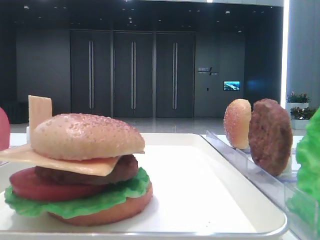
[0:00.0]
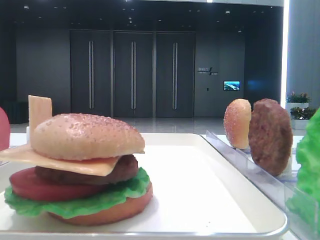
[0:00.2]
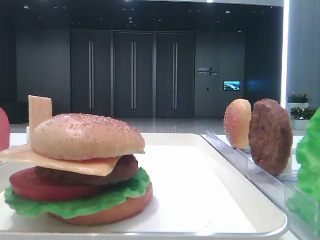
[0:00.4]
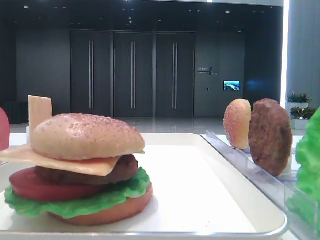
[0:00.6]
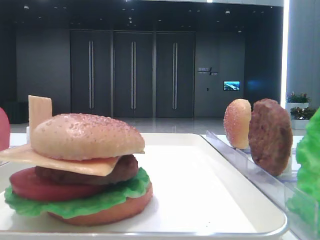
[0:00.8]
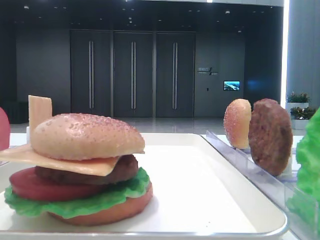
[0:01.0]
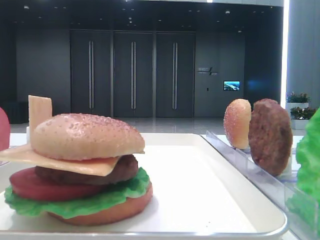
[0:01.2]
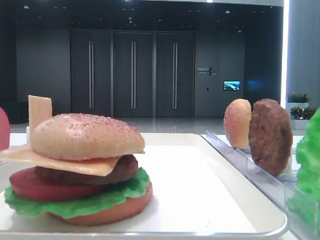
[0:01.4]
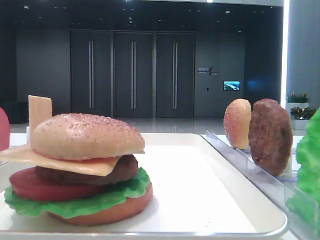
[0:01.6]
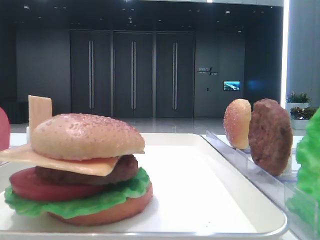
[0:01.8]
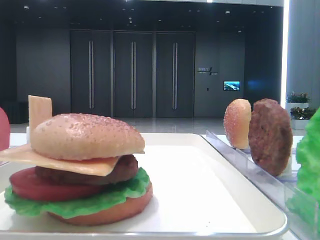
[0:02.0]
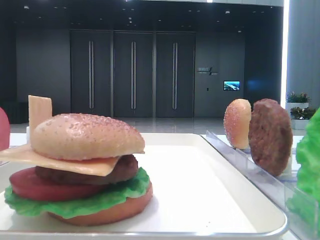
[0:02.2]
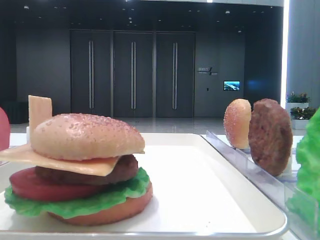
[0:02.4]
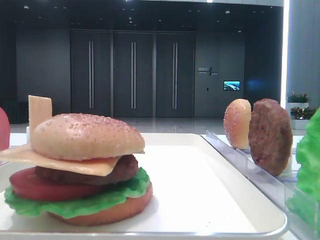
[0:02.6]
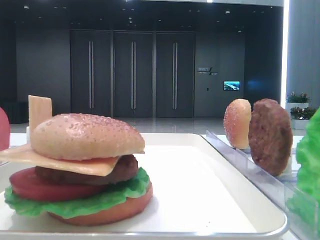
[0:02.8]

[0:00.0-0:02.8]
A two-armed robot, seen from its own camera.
0:01.4 to 0:02.8: Both grippers stay put.

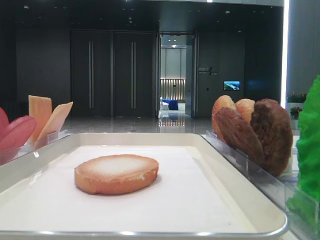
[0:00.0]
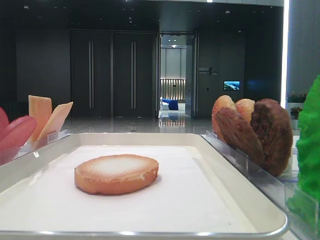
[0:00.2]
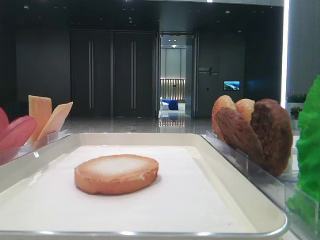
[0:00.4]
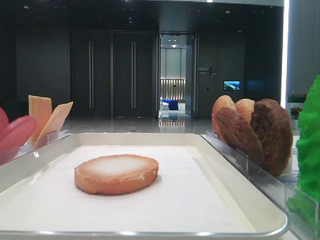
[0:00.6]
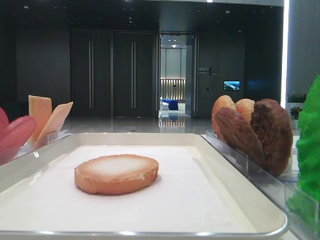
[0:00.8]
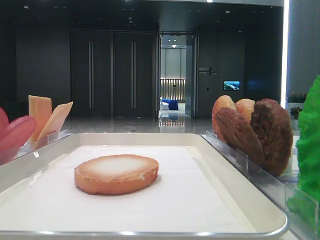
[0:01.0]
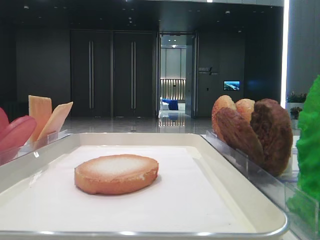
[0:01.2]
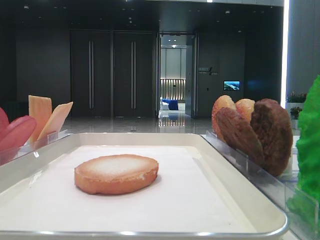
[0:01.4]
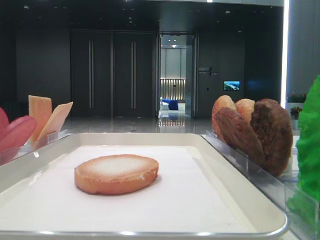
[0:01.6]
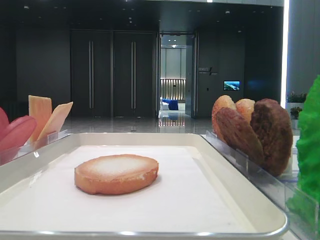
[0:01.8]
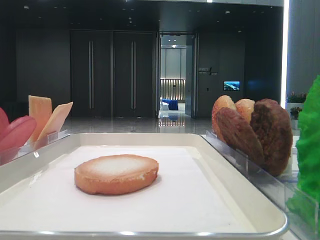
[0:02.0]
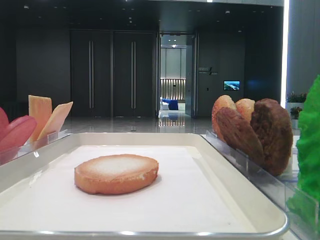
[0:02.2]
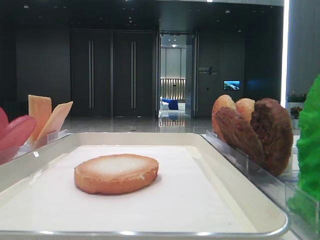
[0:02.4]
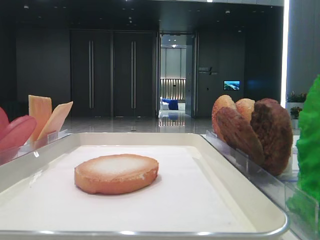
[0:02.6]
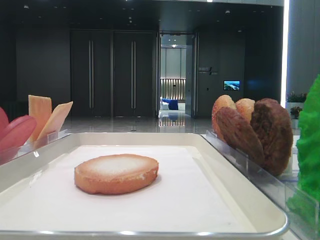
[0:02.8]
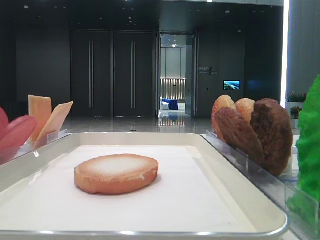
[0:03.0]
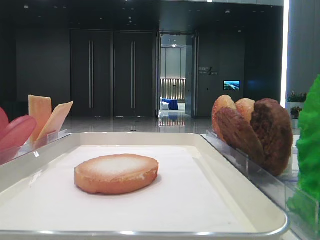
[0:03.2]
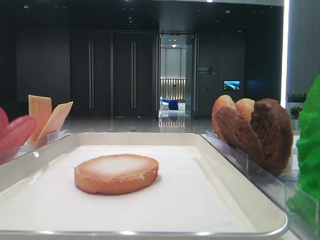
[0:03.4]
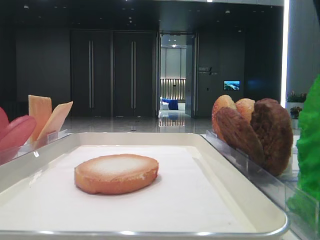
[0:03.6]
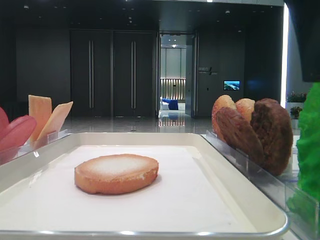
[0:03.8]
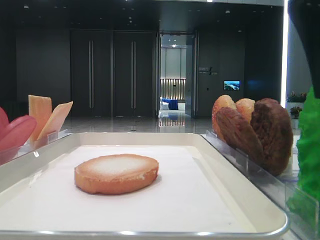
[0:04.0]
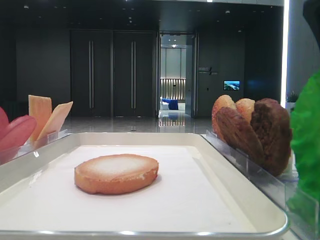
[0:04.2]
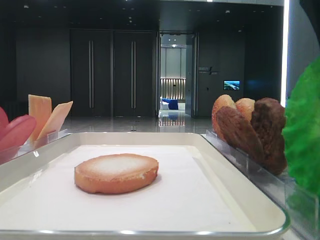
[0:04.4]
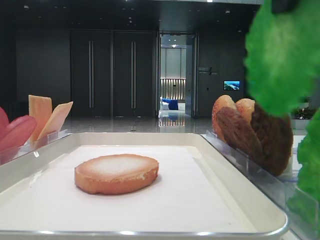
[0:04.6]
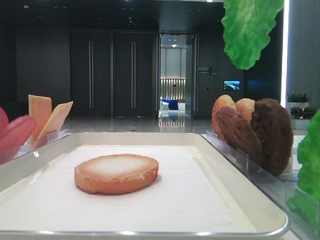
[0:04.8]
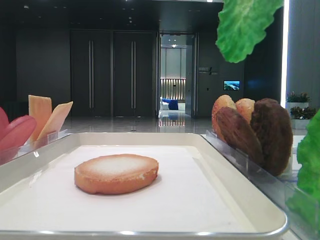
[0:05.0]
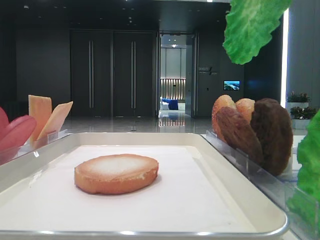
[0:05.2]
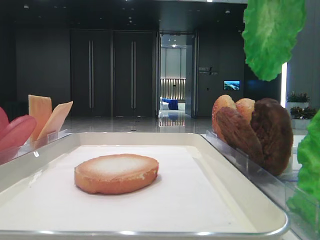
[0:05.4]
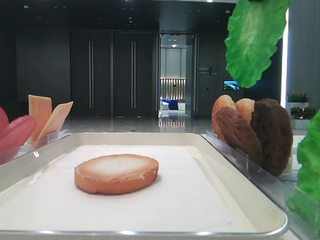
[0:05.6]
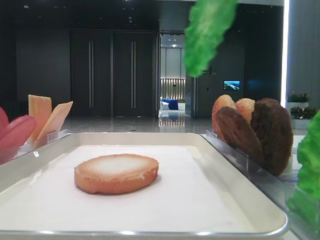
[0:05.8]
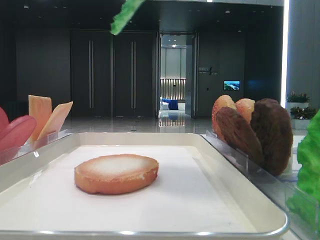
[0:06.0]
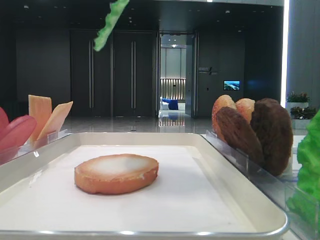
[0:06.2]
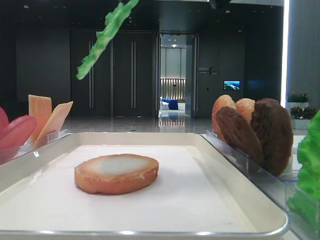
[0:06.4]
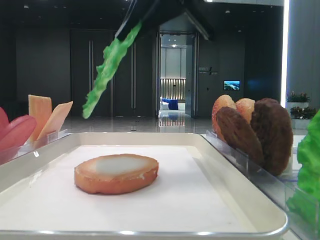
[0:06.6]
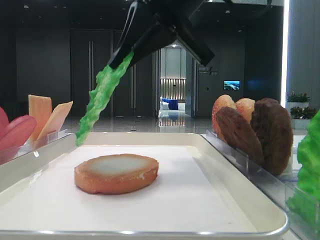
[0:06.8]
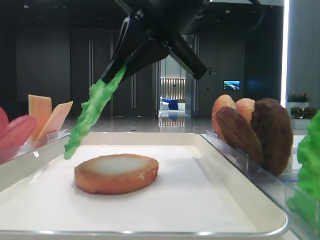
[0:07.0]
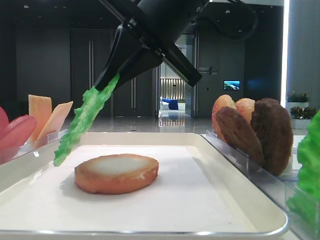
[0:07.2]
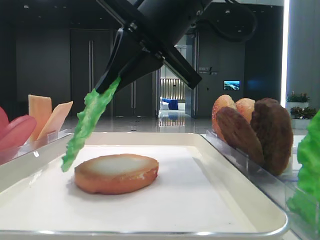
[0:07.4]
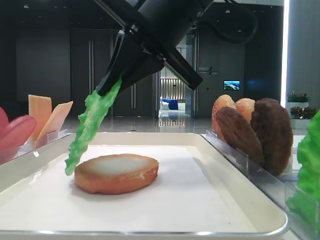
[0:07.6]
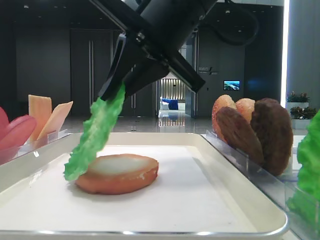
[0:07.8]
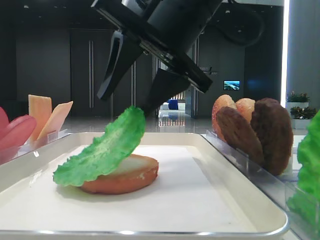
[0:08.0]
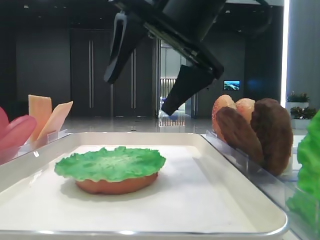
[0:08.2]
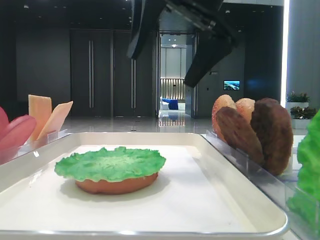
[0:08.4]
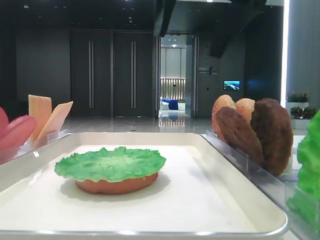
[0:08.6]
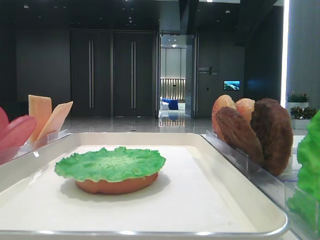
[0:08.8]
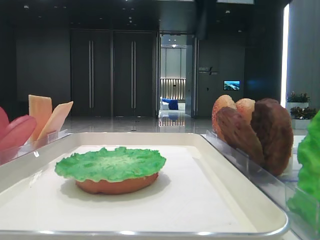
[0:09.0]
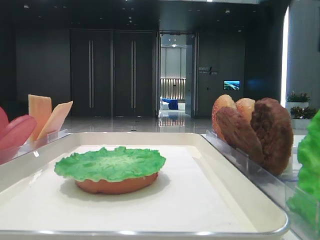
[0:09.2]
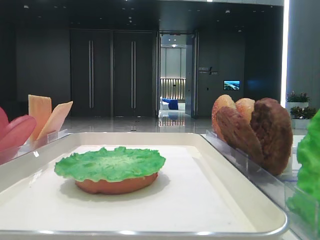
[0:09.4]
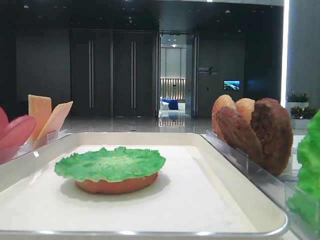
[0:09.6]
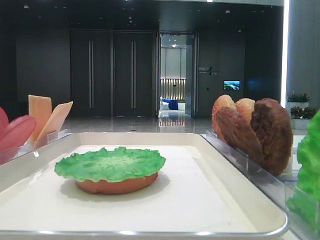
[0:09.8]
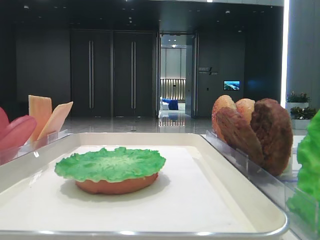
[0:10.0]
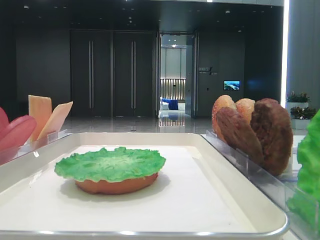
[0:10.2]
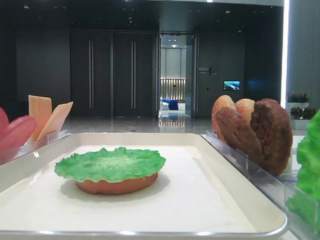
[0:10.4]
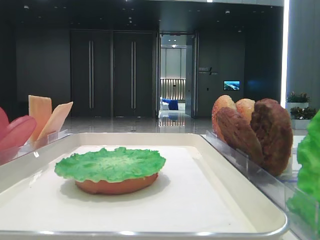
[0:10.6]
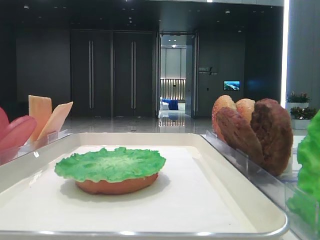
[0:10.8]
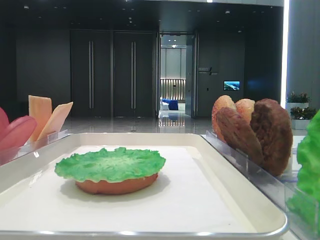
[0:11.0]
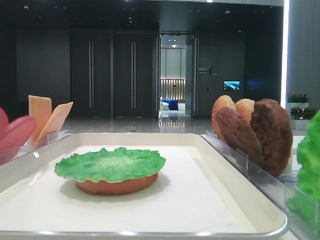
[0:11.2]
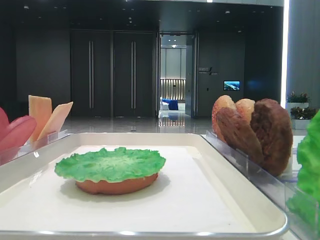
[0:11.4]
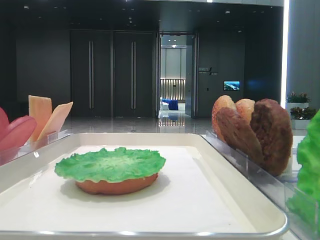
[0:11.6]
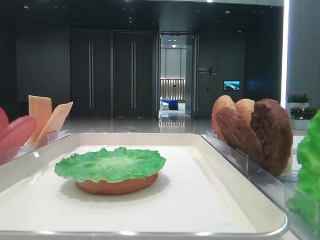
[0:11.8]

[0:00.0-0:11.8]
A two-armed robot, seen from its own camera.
Step, 0:00.0 to 0:04.2: Grab the lettuce leaf with the right hand.
Step, 0:04.4 to 0:08.0: Place the lettuce leaf on the bottom bread with the right hand.
0:03.0 to 0:04.4: The right gripper travels to the left by some 10 cm, and closes.
0:04.4 to 0:06.0: The right gripper travels upward and forward by some 10 cm.
0:06.0 to 0:07.4: The right gripper moves downward and to the left, some 15 cm.
0:07.4 to 0:08.8: The right gripper travels upward and to the right by some 10 cm, and opens its fingers.
0:08.8 to 0:10.4: The right gripper goes some 30 cm to the right and backward.

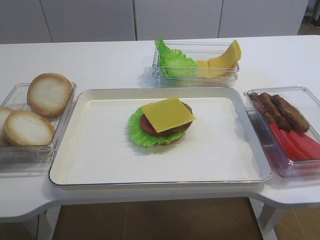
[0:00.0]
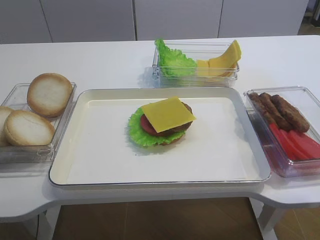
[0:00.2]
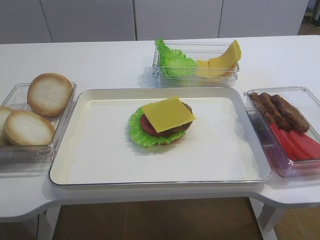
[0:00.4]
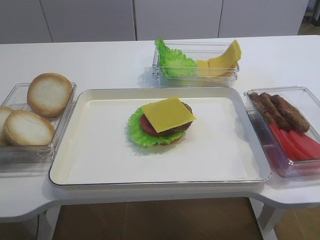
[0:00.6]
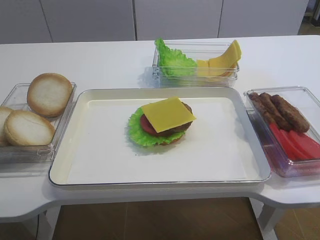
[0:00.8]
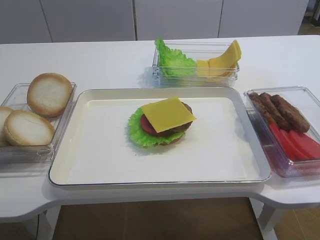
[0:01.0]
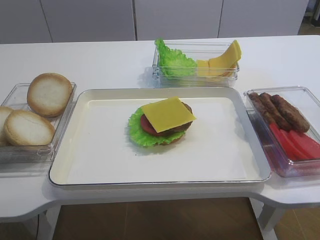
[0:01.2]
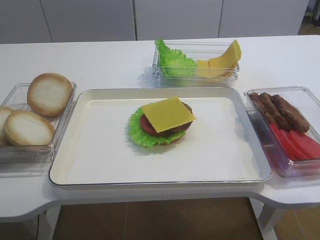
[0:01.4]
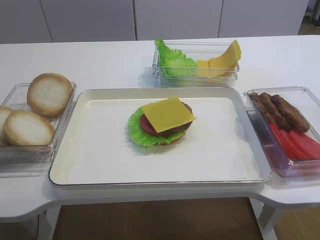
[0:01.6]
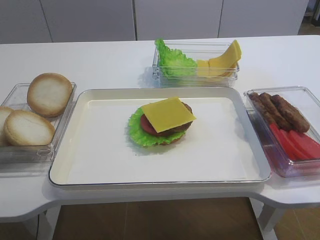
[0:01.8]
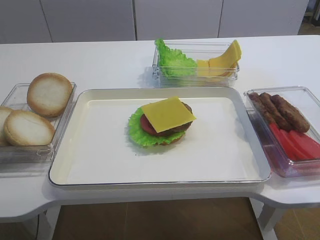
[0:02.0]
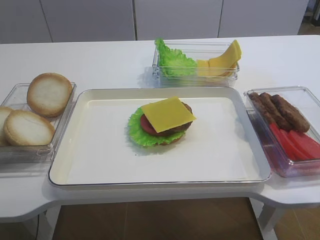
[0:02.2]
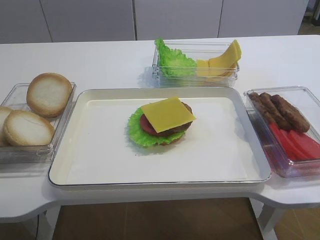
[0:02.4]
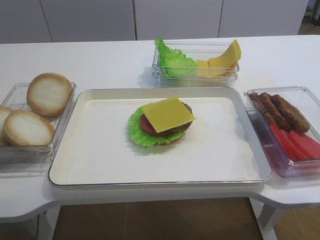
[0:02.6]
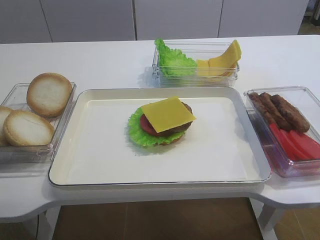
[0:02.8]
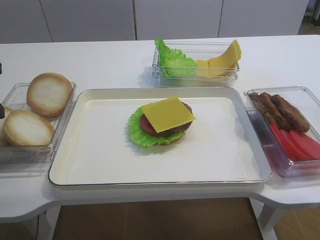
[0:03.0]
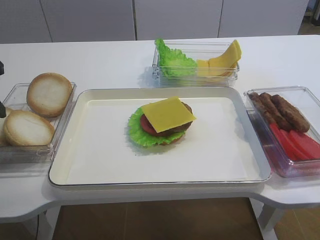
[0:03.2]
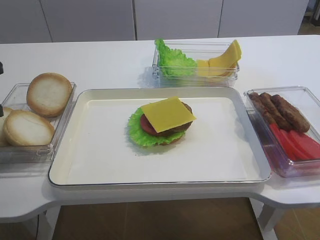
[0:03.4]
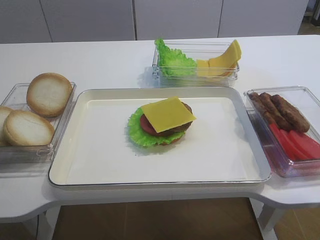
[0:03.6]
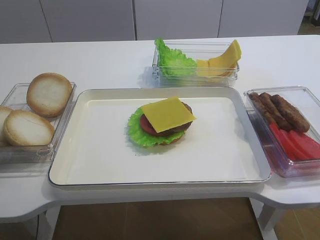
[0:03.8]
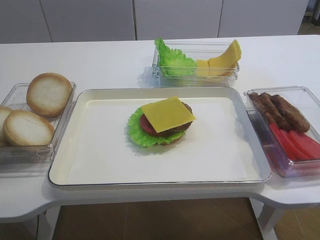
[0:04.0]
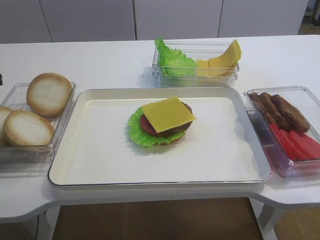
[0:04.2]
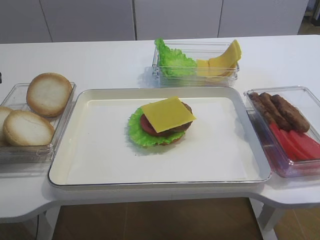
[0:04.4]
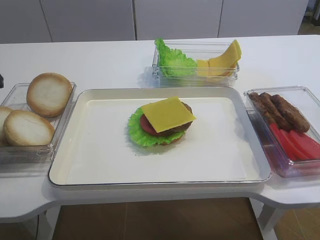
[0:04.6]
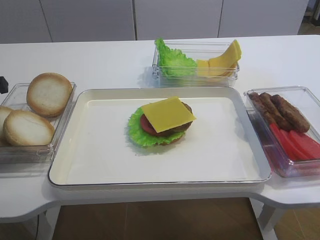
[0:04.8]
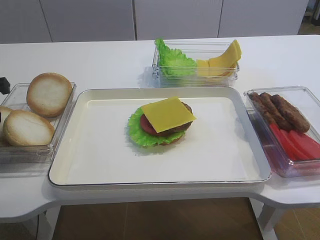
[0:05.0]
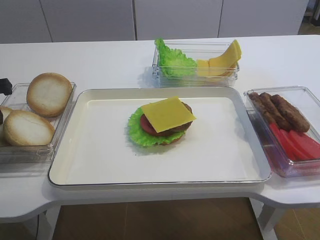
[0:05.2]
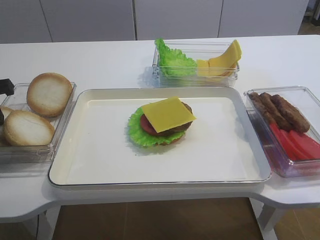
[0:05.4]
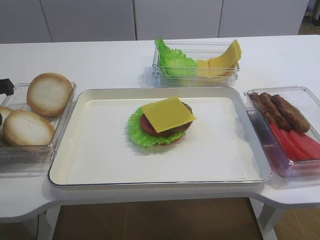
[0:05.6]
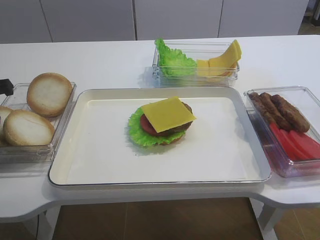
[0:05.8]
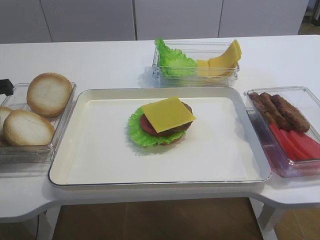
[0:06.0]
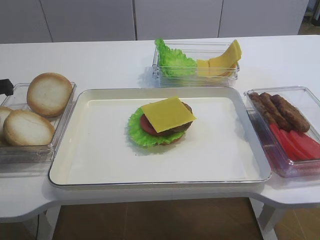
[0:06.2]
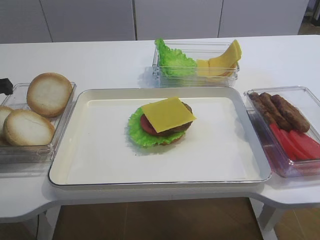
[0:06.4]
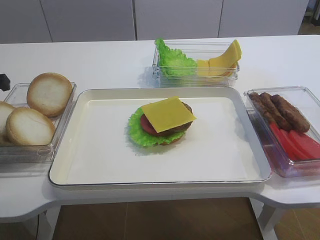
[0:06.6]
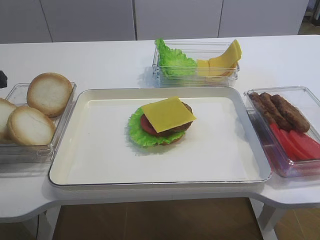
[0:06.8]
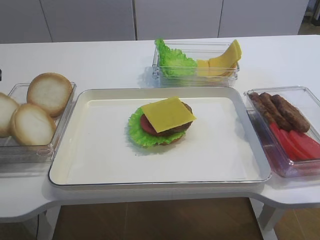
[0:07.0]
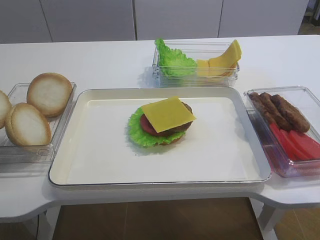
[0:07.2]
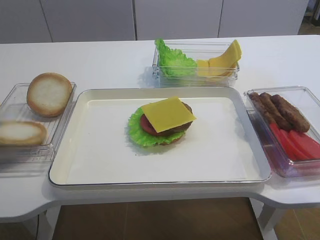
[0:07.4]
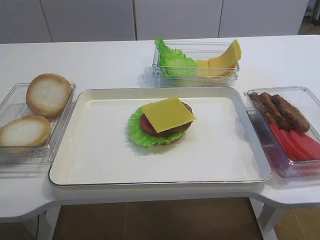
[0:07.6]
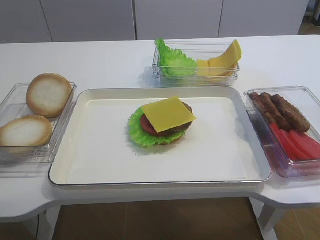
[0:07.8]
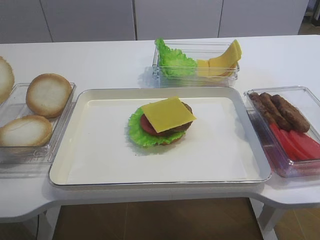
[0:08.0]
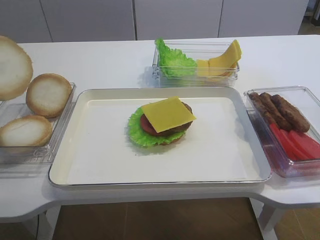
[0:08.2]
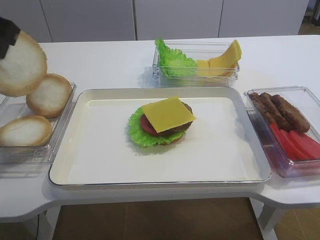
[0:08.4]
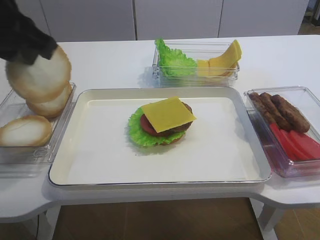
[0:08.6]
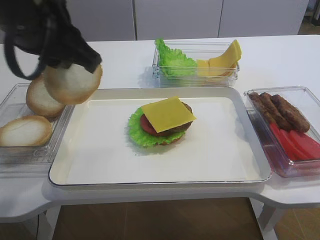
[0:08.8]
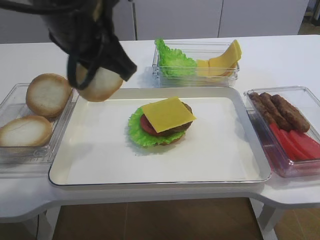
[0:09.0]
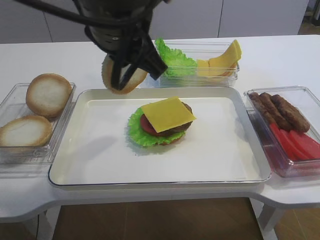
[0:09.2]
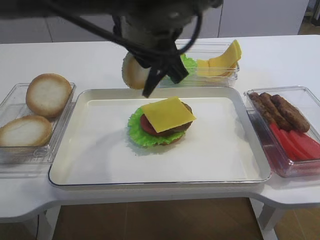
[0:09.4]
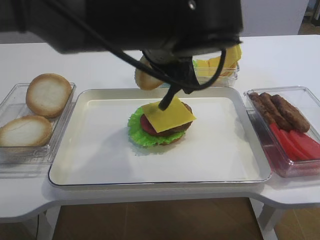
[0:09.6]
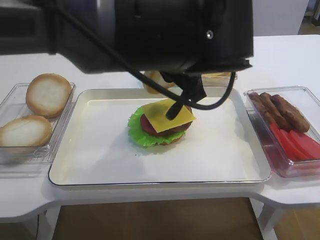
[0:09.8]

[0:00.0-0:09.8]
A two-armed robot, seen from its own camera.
0:05.6 to 0:07.0: The grippers move only a little.
0:07.0 to 0:08.4: The left gripper is displaced upward, to the right and backward by about 15 cm.
0:08.4 to 0:09.8: The left gripper is displaced to the right by roughly 25 cm.